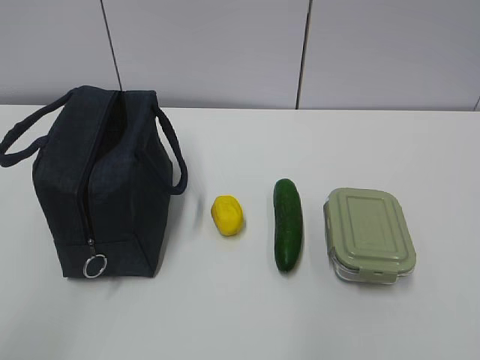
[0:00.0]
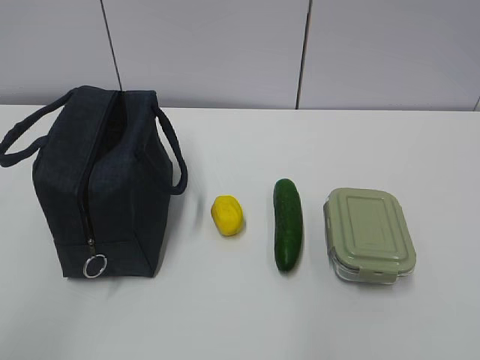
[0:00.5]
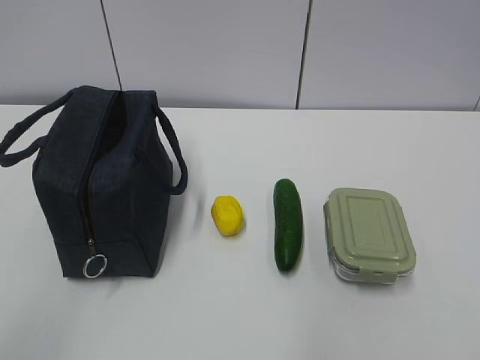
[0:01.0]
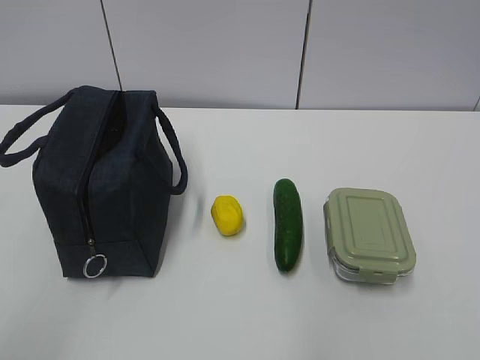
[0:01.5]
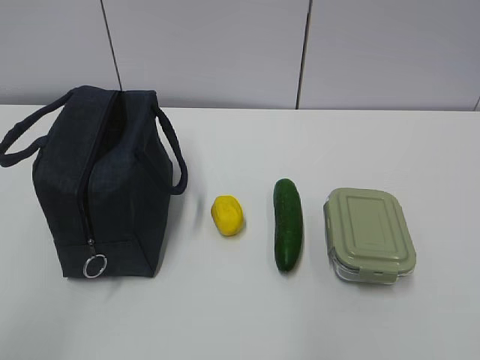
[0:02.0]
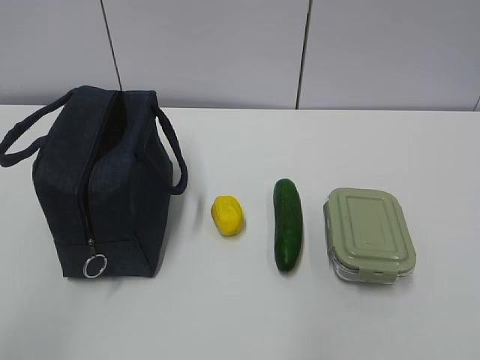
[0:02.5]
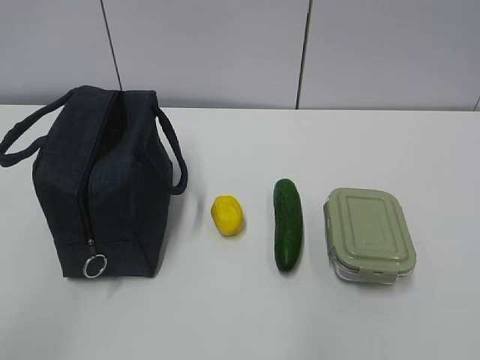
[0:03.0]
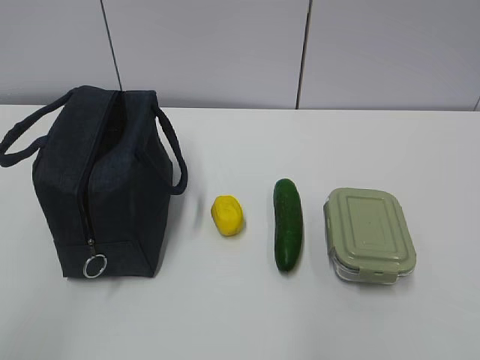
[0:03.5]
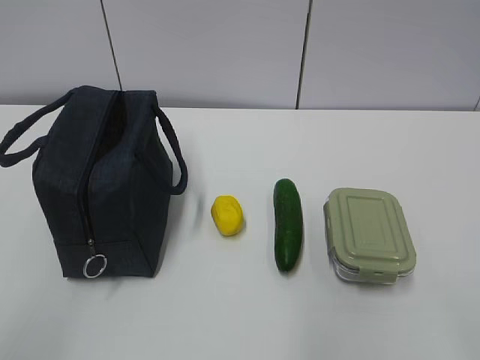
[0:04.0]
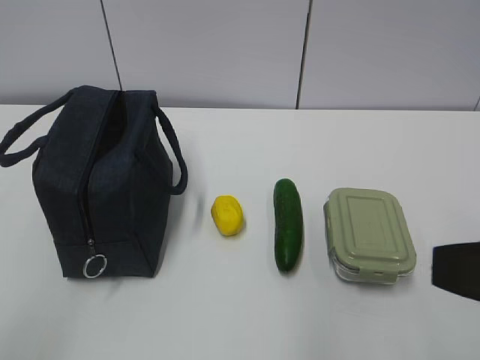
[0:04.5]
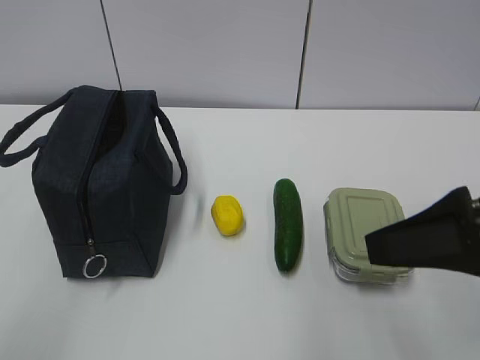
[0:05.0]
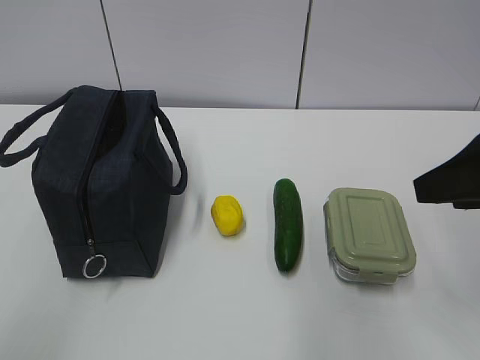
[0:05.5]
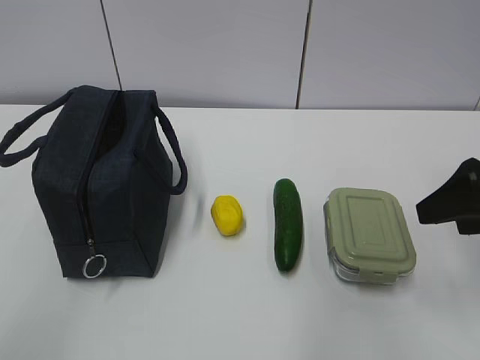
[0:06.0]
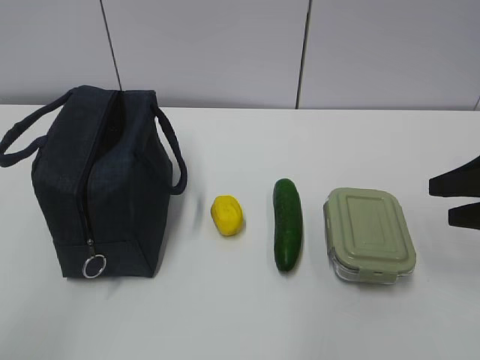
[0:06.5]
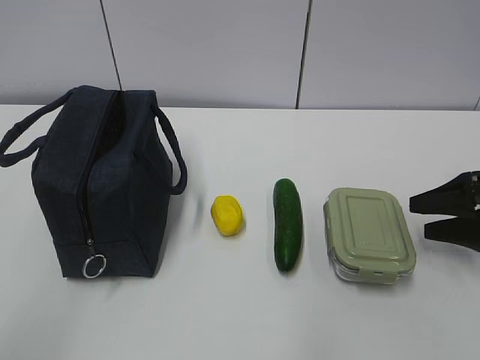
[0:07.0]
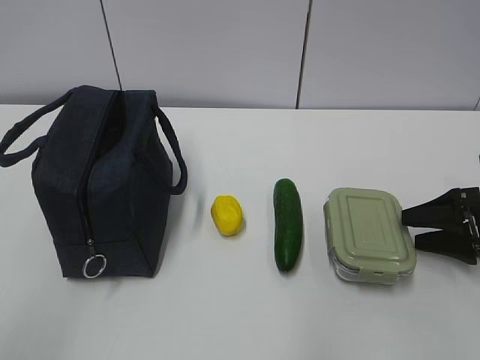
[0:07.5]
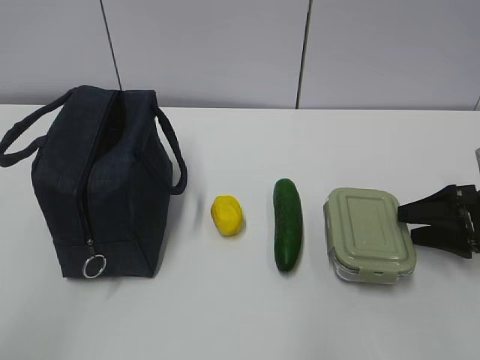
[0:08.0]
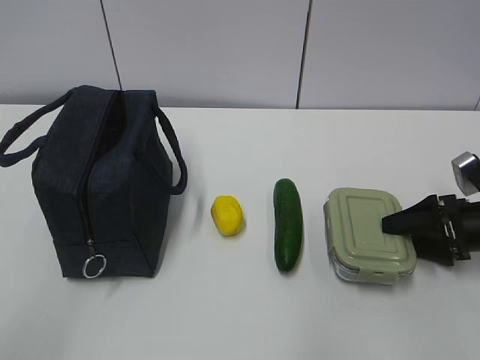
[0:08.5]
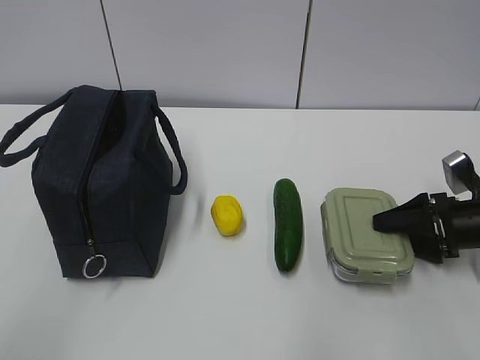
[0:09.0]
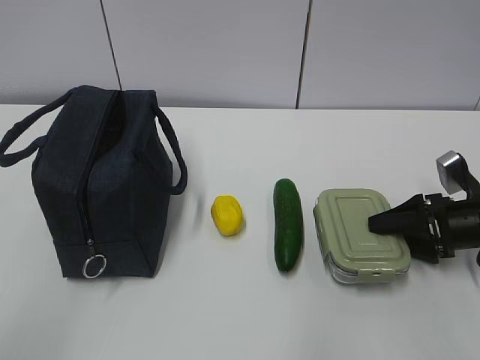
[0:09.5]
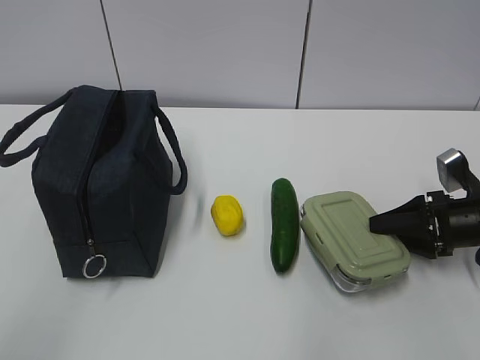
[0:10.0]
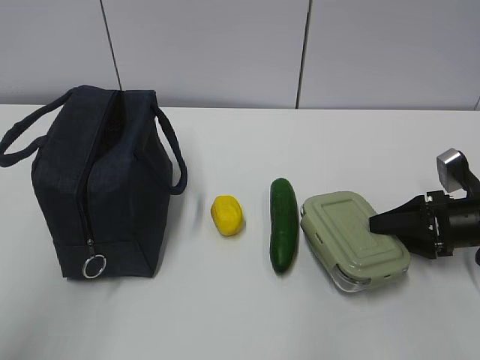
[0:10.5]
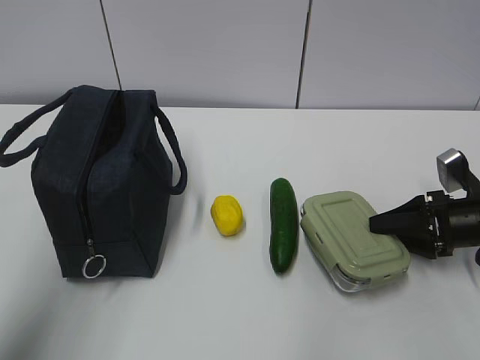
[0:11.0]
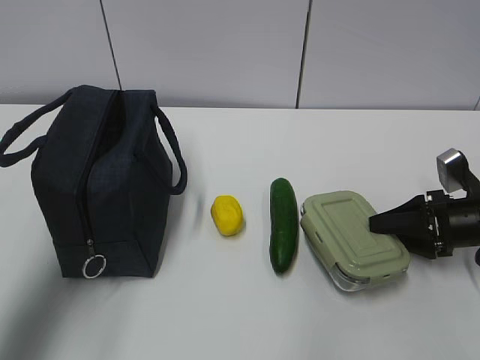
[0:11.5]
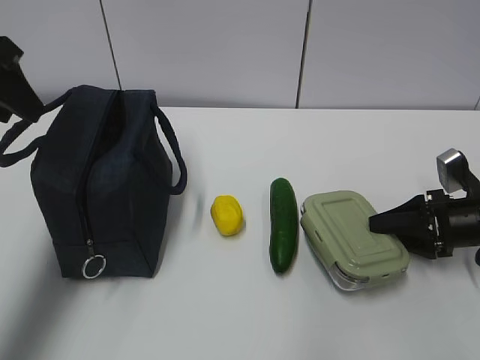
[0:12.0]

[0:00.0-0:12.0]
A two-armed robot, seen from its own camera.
4.0 to 6.0 s: The right gripper travels forward by some 25 cm.
6.0 to 8.0 s: The right gripper moves downward, forward and to the right, some 15 cm.
8.0 to 10.0 s: There are only small adjustments of the grippers.
10.0 to 12.0 s: The left gripper goes approximately 30 cm forward.

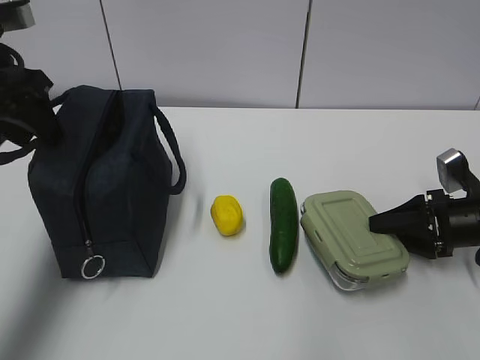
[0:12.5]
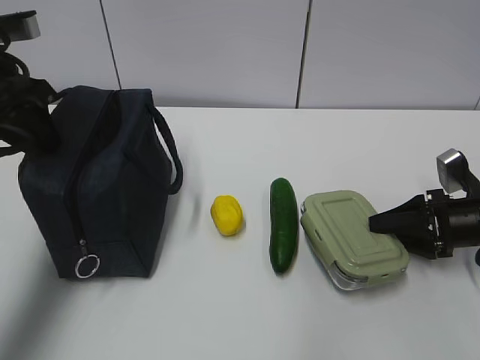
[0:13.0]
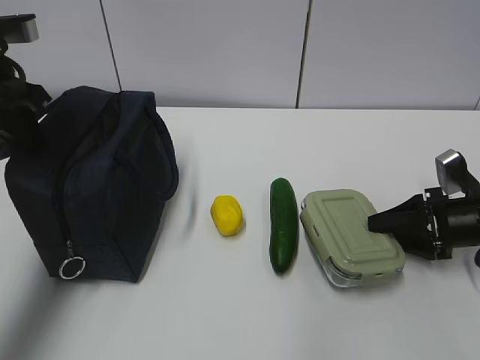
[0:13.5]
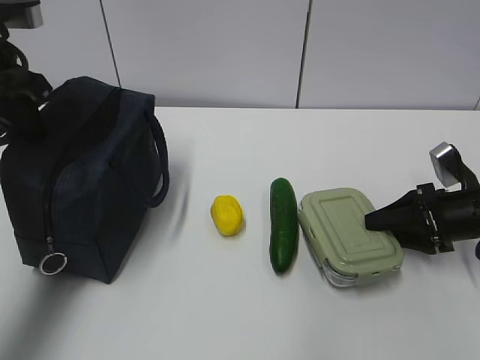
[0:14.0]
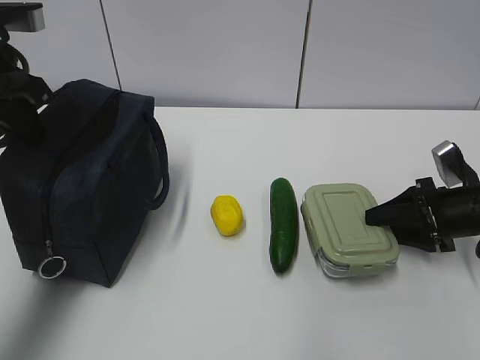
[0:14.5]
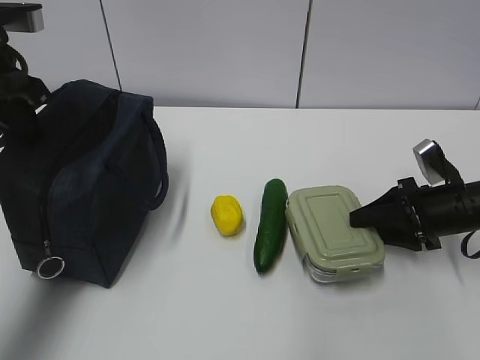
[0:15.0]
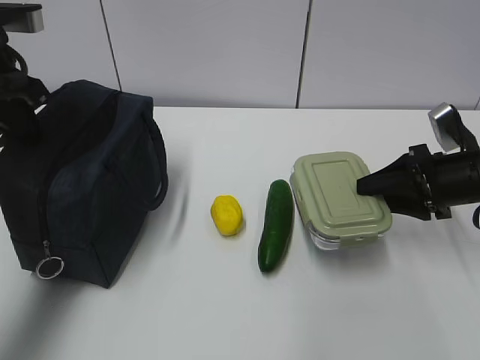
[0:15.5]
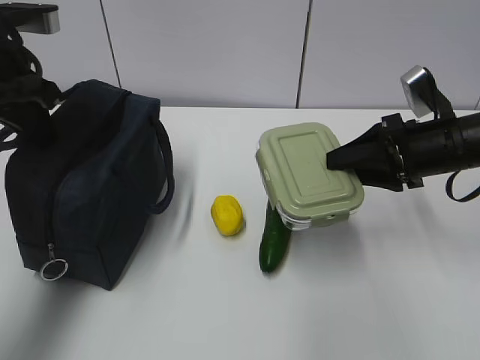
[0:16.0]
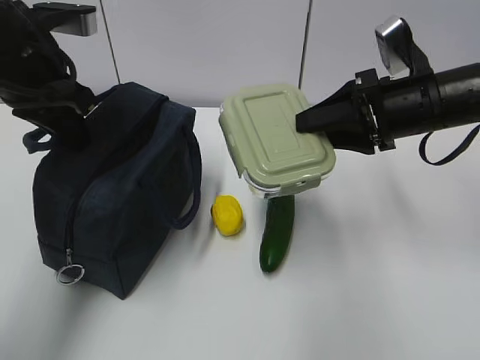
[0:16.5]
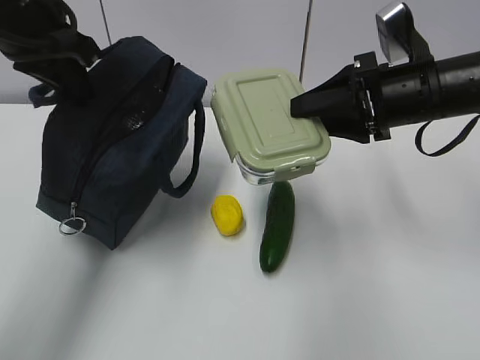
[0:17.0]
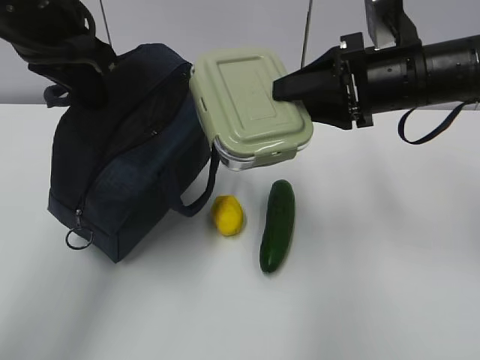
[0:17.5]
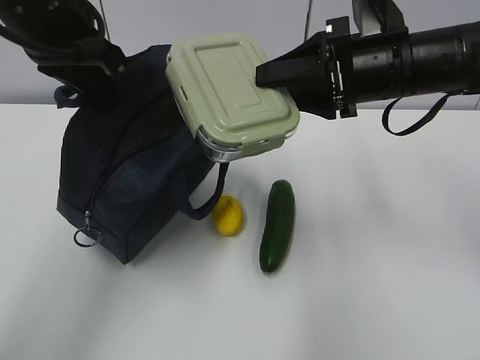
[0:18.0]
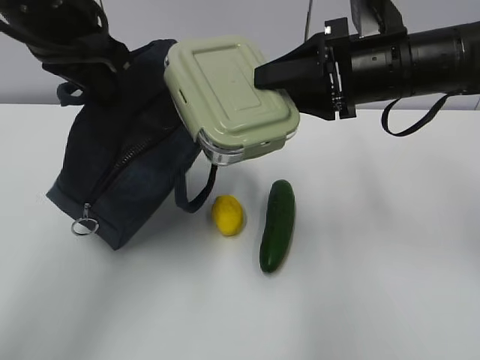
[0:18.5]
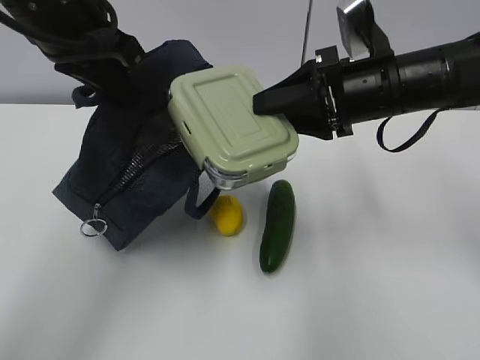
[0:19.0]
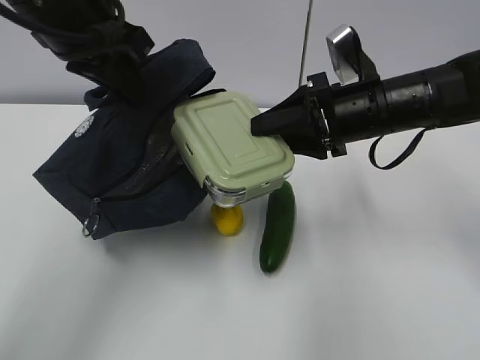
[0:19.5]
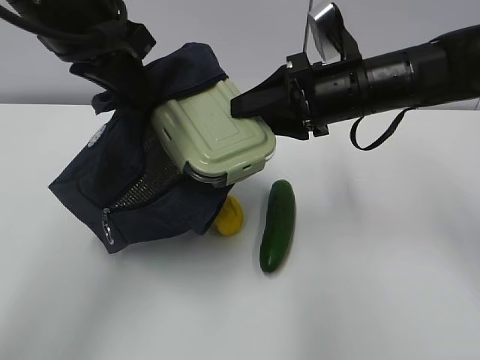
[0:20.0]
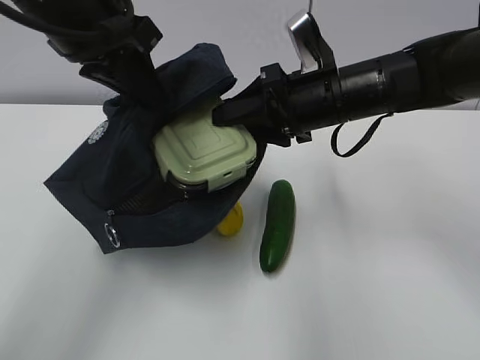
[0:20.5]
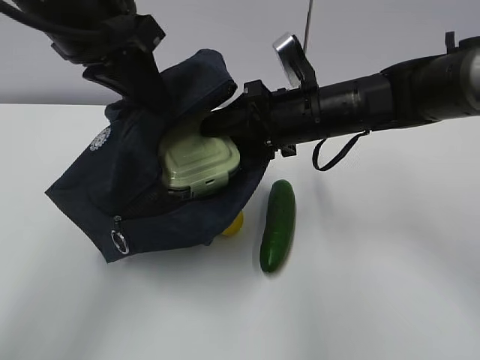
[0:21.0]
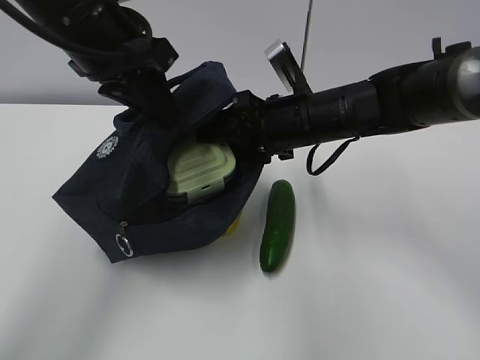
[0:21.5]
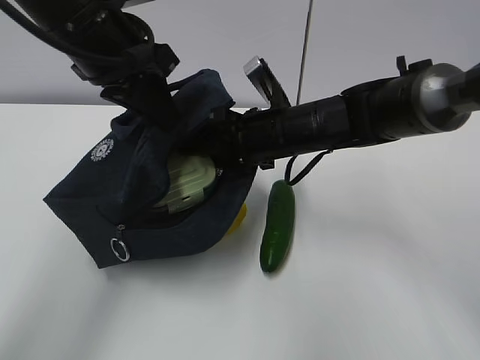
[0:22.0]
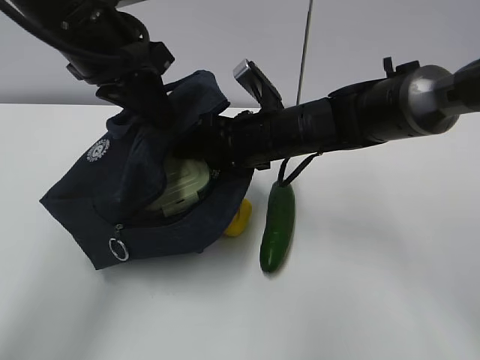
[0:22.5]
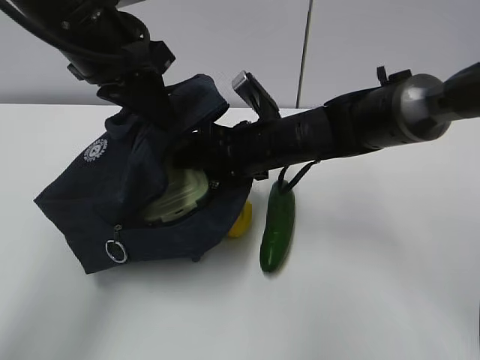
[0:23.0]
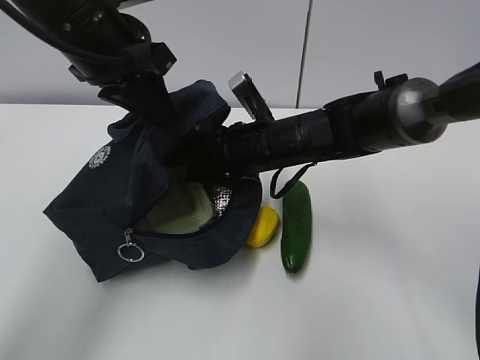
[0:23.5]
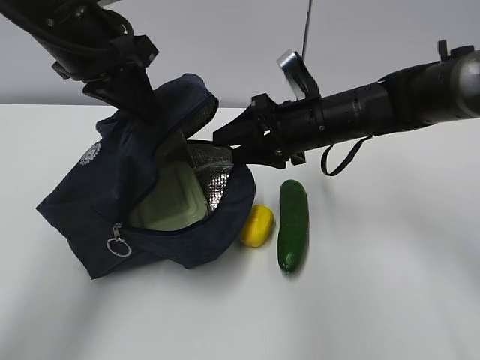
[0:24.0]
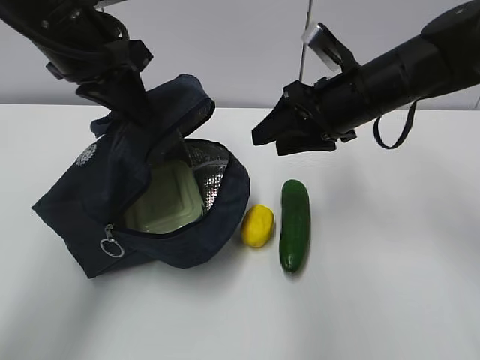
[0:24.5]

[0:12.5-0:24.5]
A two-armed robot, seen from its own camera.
Step, 13.0 to 15.0 s: Grab the lunch bag with your left hand.
Step, 15.5 to 19.0 s: Place it into the bag with your right hand.
Step, 19.5 to 22.0 s: Grab the cucumber with your right hand.
12.5 to 14.5 s: The left gripper closes.
14.5 to 16.5 s: The right gripper travels upward and to the left by about 20 cm. The left gripper goes approximately 5 cm to the right.
16.5 to 18.5 s: The right gripper ends up approximately 5 cm from where it was. The left gripper shifts by roughly 5 cm.
18.5 to 20.5 s: The right gripper moves roughly 5 cm.
20.5 to 22.5 s: The right gripper shifts some 10 cm to the left and downward.
22.5 to 24.5 s: The right gripper shifts some 10 cm to the right and upward.

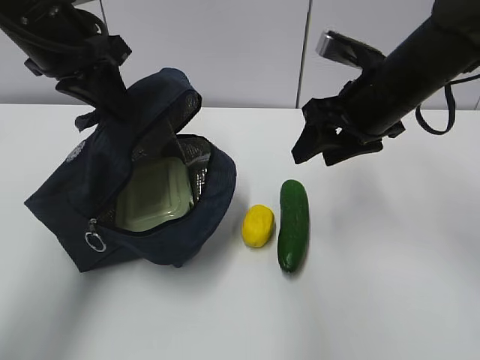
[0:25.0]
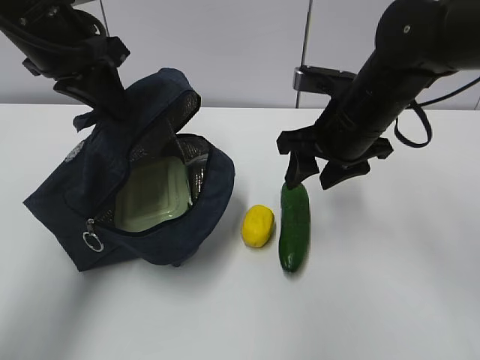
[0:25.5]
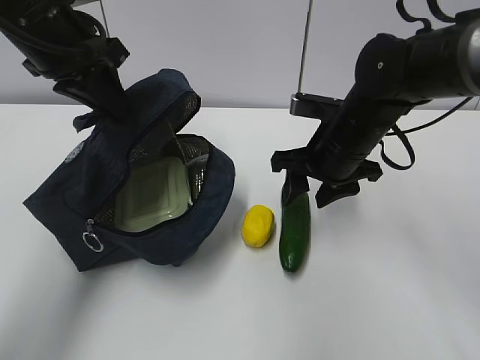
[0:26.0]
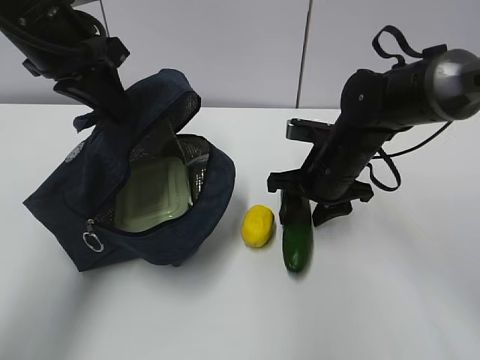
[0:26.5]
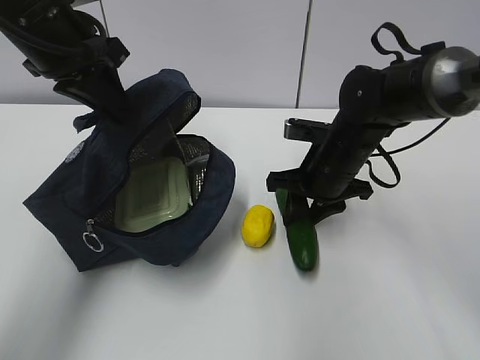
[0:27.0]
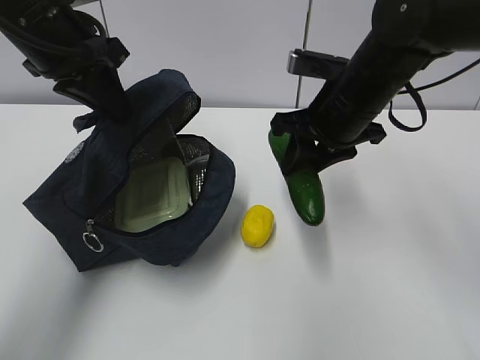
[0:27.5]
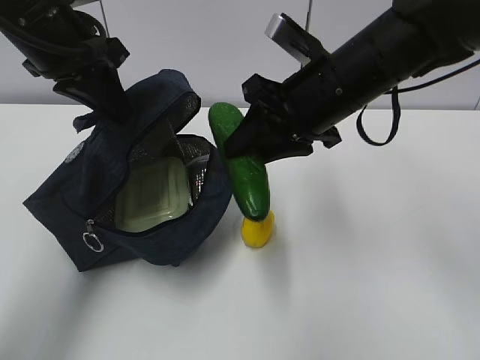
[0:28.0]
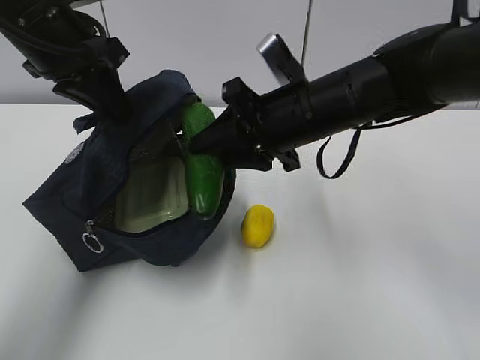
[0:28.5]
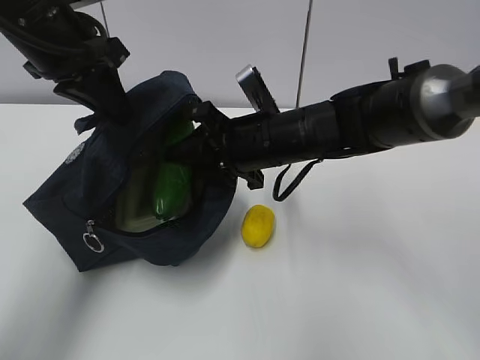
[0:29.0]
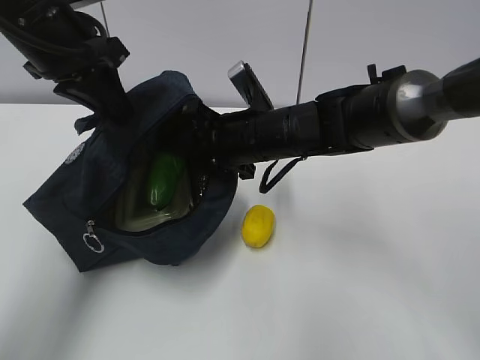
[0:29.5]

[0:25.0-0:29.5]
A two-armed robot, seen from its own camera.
Step, 25.5 to 27.5 s: Grab the lemon with your right hand.
25.0 to 27.0 s: The right gripper shifts roughly 10 cm downward.
27.0 to 29.5 s: The right gripper is displaced to the left by some 10 cm, and moves approximately 10 cm upward and comes back.
